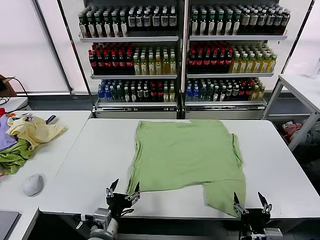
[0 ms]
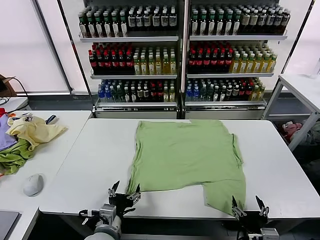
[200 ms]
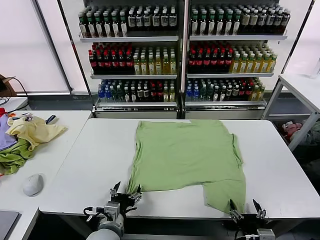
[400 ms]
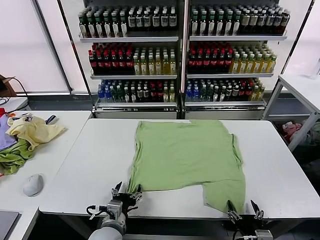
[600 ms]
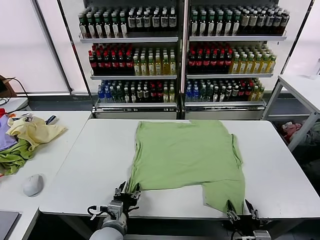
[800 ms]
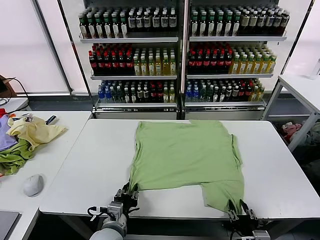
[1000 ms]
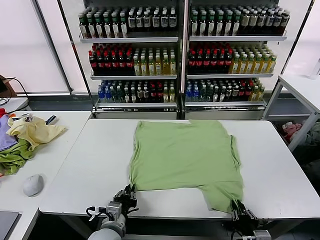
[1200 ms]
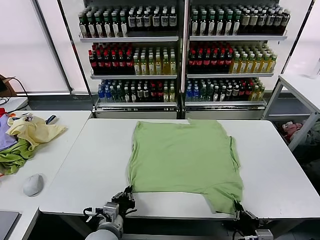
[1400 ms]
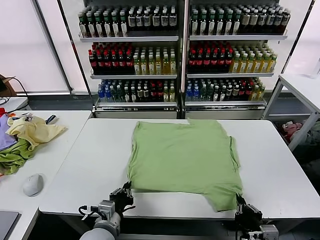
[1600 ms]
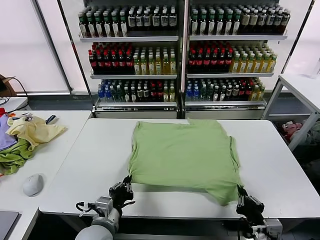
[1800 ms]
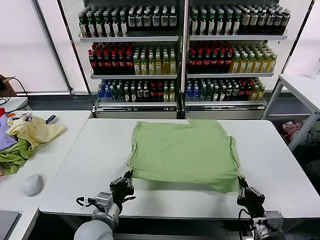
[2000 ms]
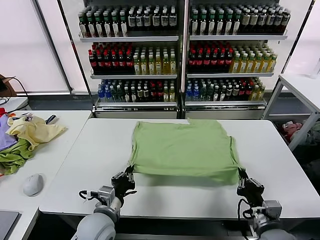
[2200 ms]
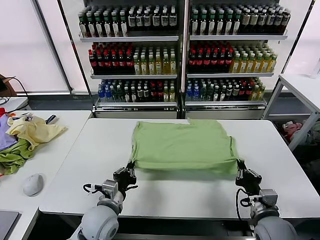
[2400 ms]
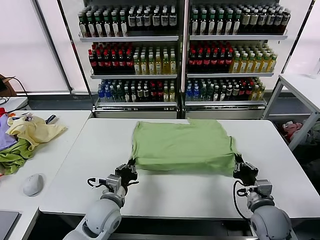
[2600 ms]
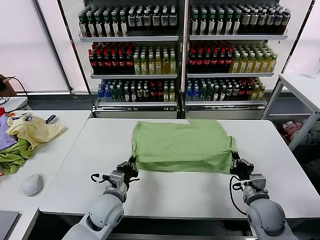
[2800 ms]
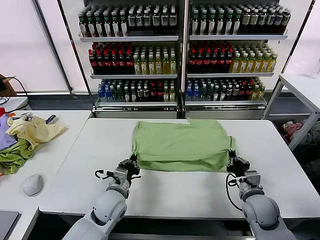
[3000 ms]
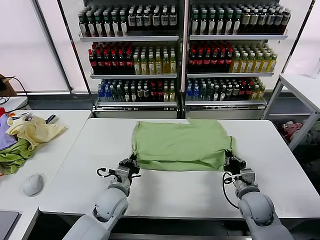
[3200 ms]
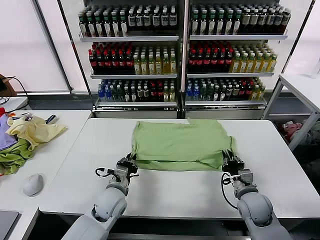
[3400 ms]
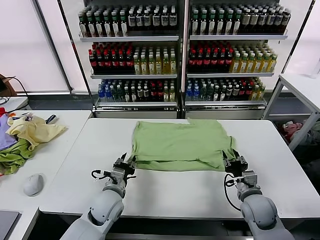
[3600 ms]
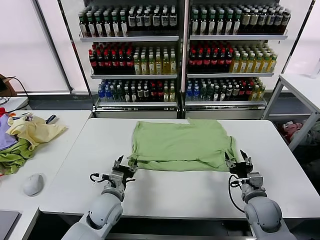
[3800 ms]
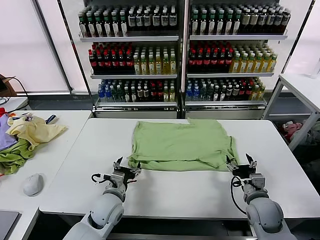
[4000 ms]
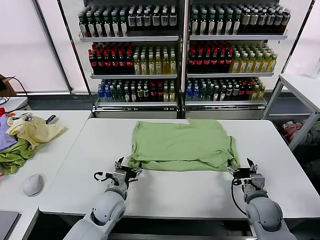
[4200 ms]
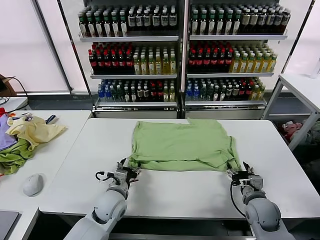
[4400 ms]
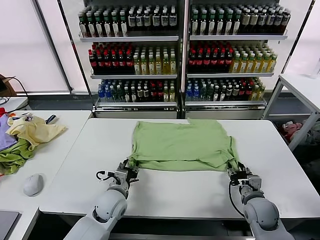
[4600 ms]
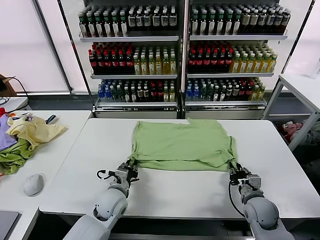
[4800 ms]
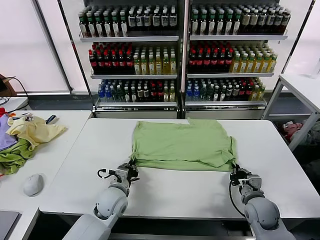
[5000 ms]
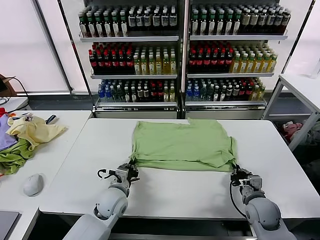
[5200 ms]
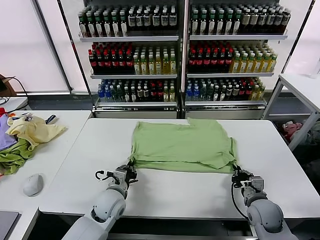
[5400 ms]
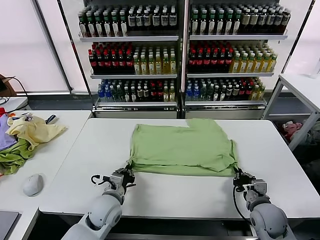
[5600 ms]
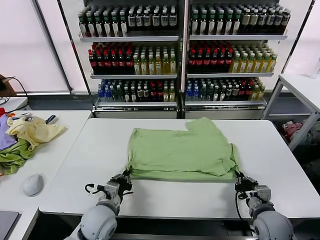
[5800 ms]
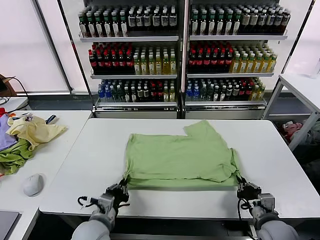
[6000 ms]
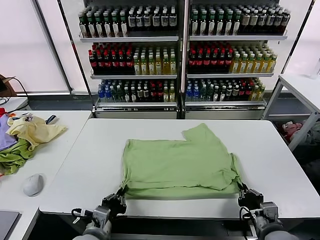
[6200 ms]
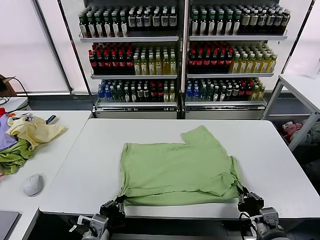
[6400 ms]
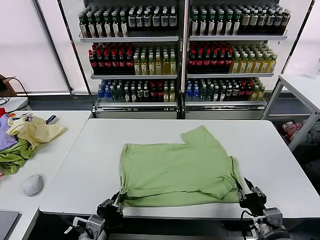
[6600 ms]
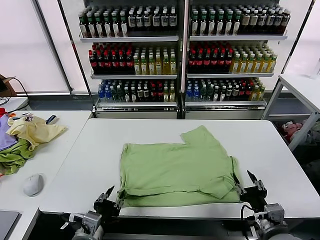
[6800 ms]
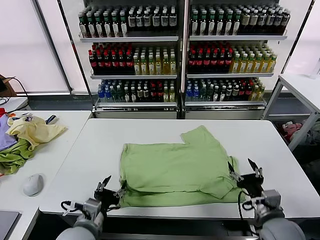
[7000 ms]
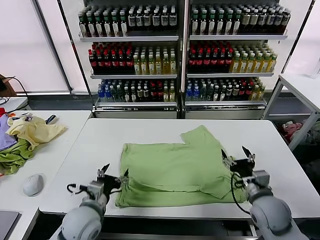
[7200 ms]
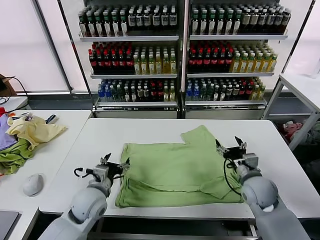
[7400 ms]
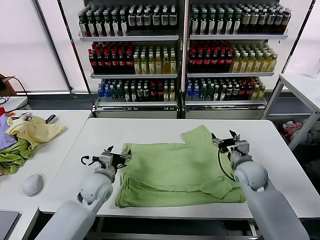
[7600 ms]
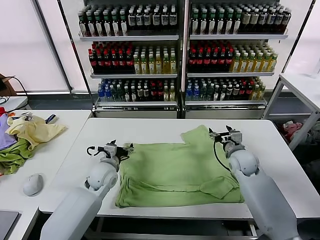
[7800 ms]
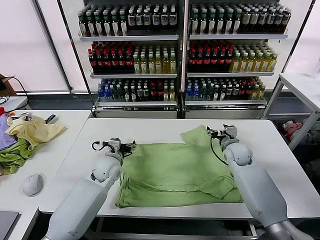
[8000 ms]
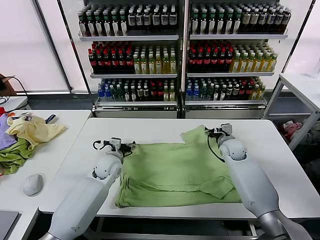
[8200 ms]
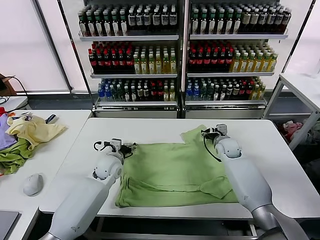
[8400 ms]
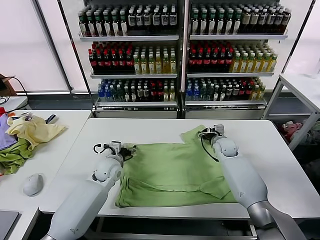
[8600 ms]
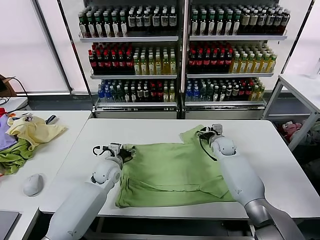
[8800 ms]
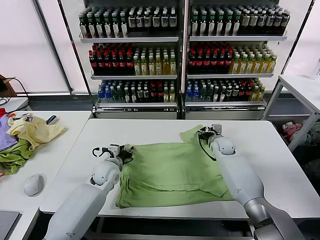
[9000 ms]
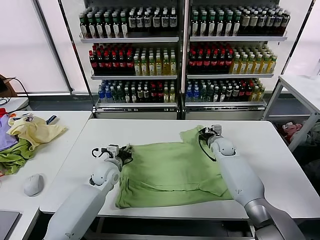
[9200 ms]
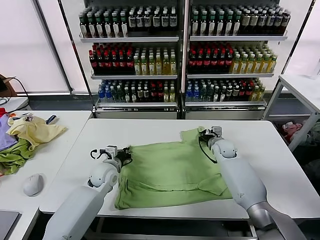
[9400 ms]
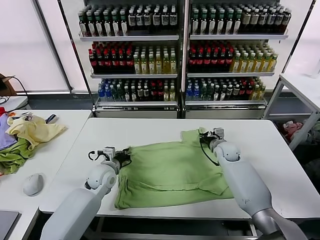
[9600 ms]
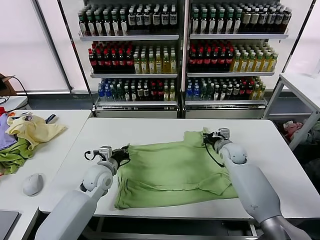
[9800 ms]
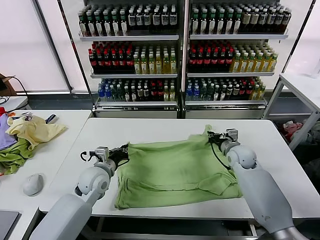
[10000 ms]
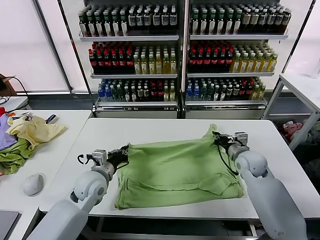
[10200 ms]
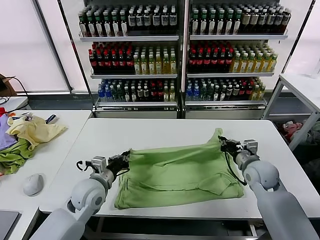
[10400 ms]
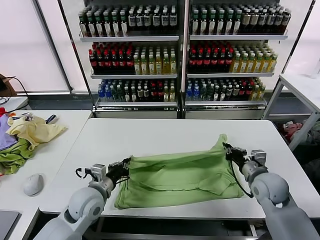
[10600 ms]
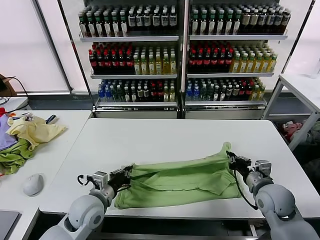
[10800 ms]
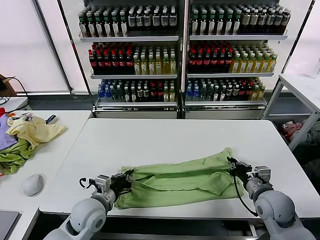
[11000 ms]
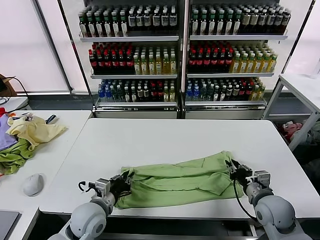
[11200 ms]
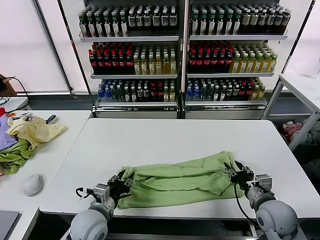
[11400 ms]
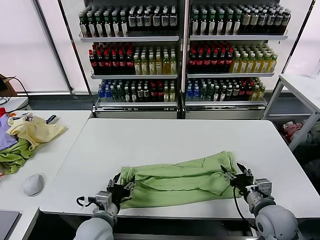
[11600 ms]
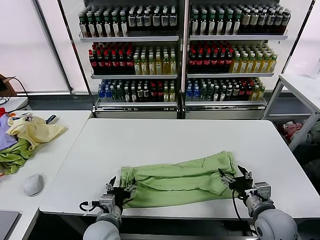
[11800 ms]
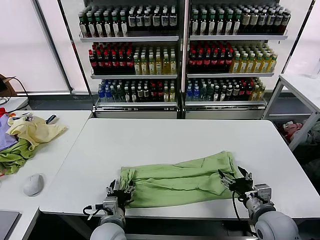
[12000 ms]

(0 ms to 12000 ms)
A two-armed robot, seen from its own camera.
Task of the whole recording: fold and organize the clothes.
Step, 0 ms - 1400 ms: use both grippers simultaneously to clamp the lower edge of the clothing fabric.
Step, 1600 ms - 3600 ms: use both grippers to drag the lower edge of the fabric forward and fold it over the upper edge.
Step, 3800 ms - 6600 ms: Drag the clothes downward with both gripper.
Step, 6800 ms - 9400 ms: use both grippers simultaneously to clamp the upper edge of the clothing fabric.
Step, 9600 ms - 11400 ms: use both grippers to drag the upper edge of the fabric backward and fold it over the lower edge.
1600 ms - 3000 ms: The two grippers go some 15 cm forward.
3000 ms - 4400 ms: The left gripper opens up. The right gripper opens its fingers.
4400 ms - 6000 ms: The two grippers go about 10 cm backward. The left gripper closes up. The right gripper closes its fingers.
6000 ms - 7600 ms: The left gripper is displaced forward by approximately 15 cm, and opens, while the right gripper shifts approximately 25 cm forward, and opens.
7600 ms - 9000 ms: The left gripper travels forward by about 5 cm, and closes up. Meanwhile the right gripper goes roughly 15 cm forward and downward, and closes up.
9000 ms - 10400 ms: The left gripper moves backward and upward, about 10 cm, and closes its fingers, while the right gripper is displaced backward by about 20 cm, and closes up.
10400 ms - 12000 ms: The left gripper is displaced backward, to the right and downward by approximately 15 cm, and opens up. The right gripper moves backward, about 15 cm, and opens its fingers.

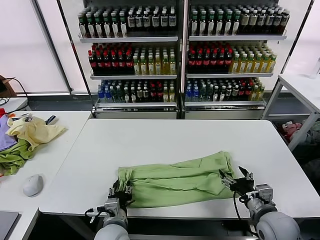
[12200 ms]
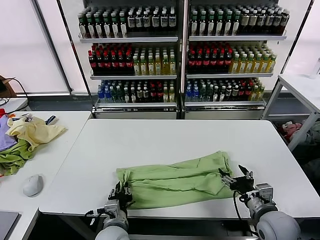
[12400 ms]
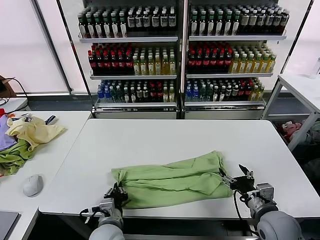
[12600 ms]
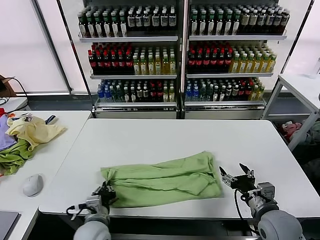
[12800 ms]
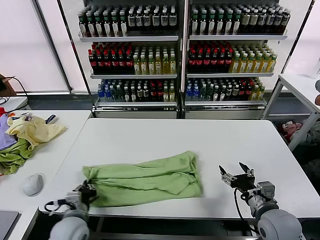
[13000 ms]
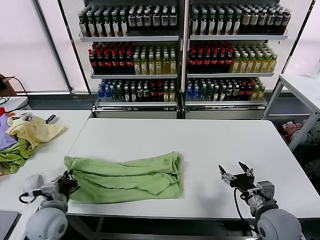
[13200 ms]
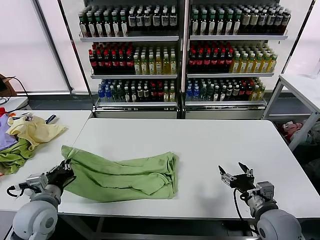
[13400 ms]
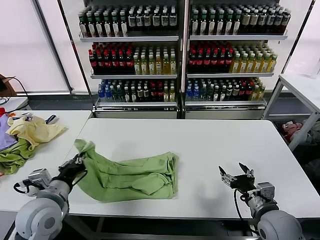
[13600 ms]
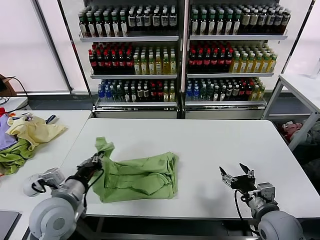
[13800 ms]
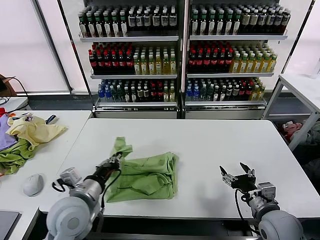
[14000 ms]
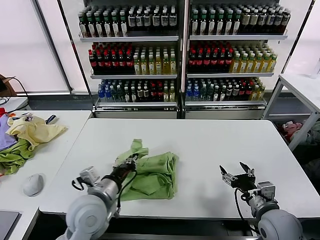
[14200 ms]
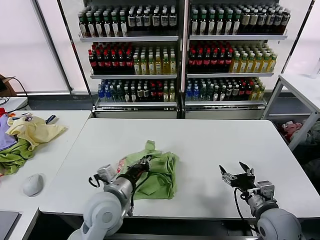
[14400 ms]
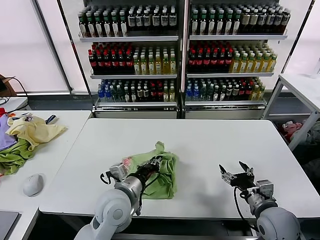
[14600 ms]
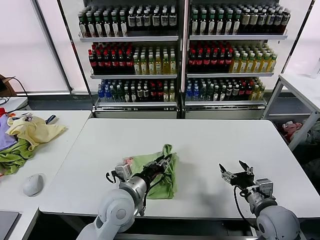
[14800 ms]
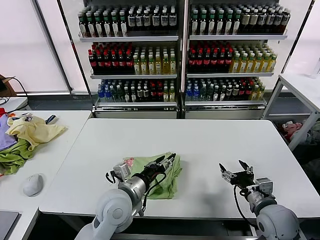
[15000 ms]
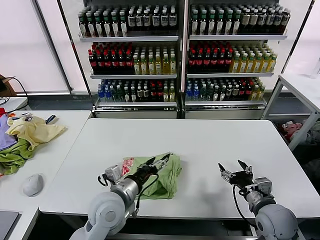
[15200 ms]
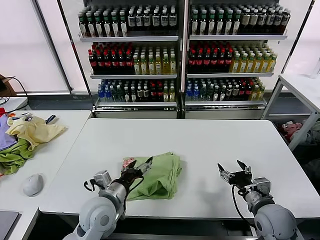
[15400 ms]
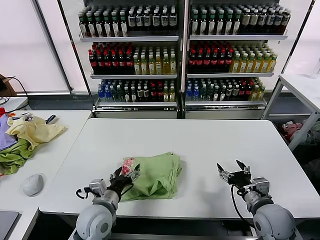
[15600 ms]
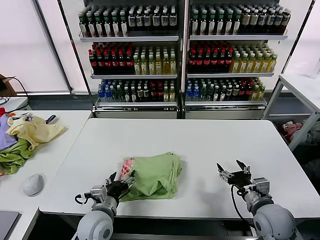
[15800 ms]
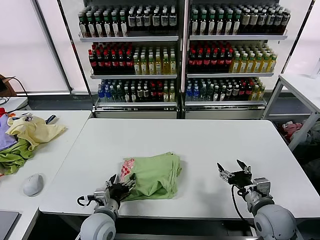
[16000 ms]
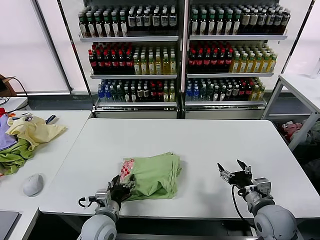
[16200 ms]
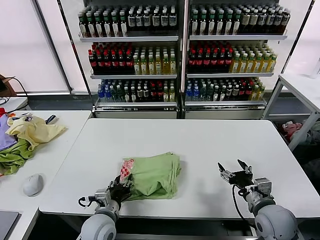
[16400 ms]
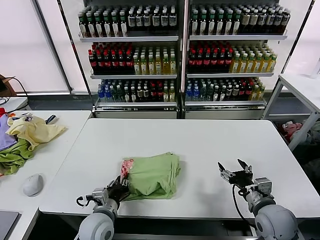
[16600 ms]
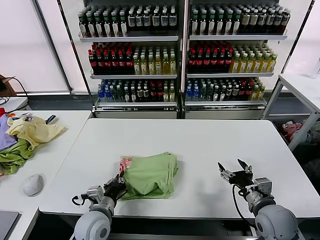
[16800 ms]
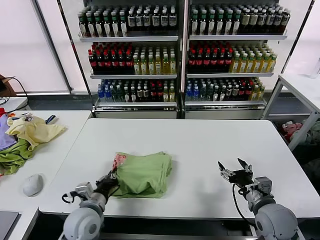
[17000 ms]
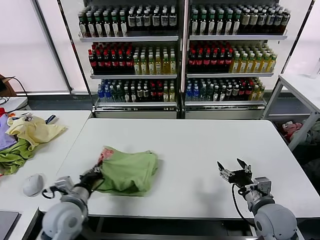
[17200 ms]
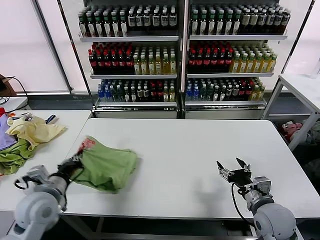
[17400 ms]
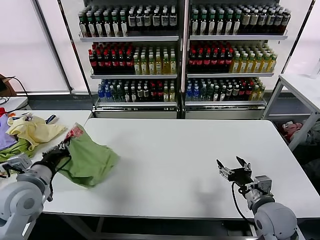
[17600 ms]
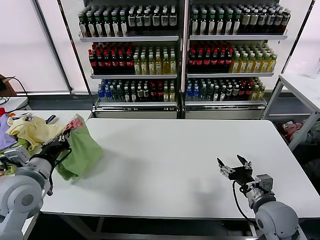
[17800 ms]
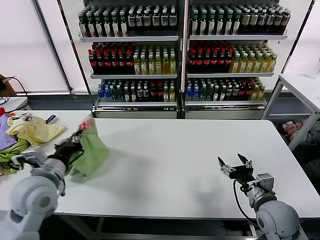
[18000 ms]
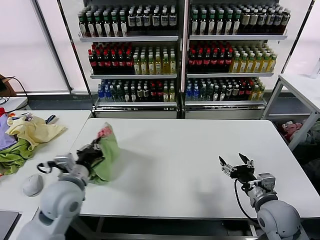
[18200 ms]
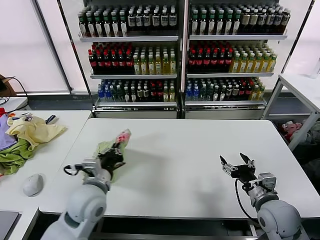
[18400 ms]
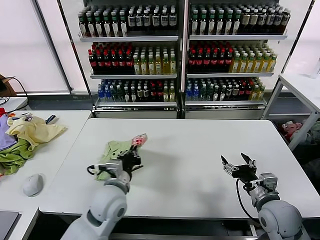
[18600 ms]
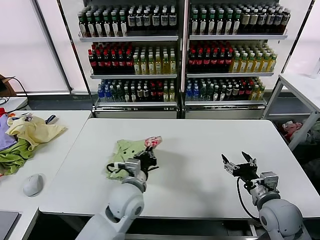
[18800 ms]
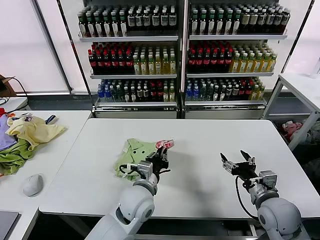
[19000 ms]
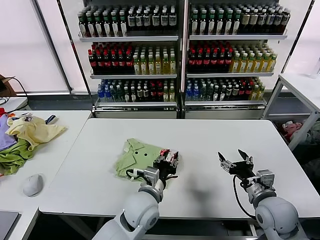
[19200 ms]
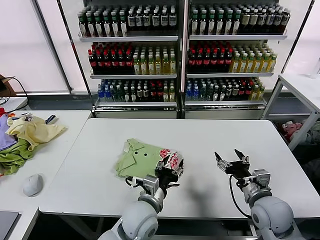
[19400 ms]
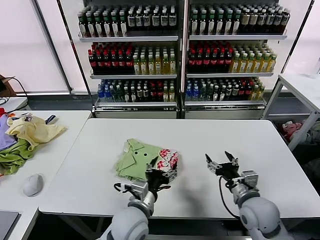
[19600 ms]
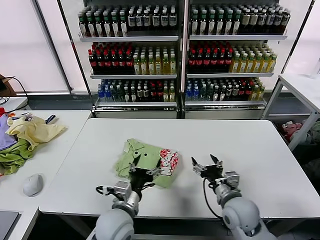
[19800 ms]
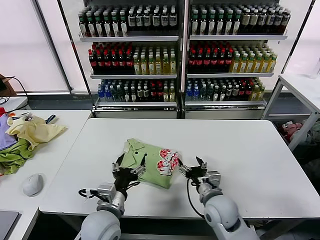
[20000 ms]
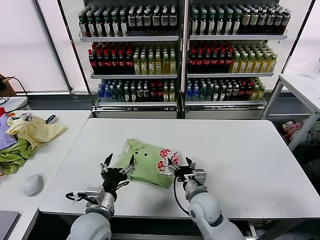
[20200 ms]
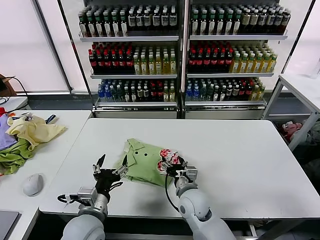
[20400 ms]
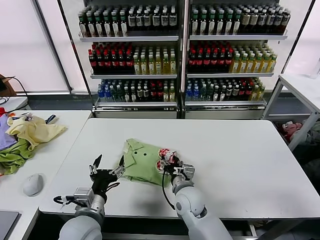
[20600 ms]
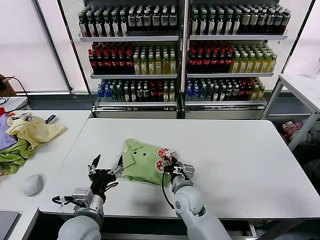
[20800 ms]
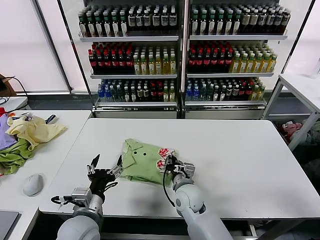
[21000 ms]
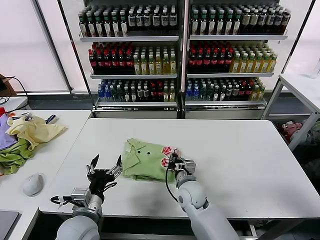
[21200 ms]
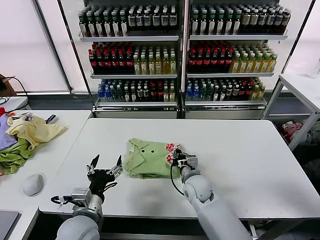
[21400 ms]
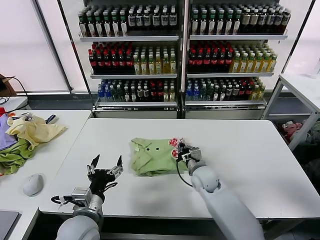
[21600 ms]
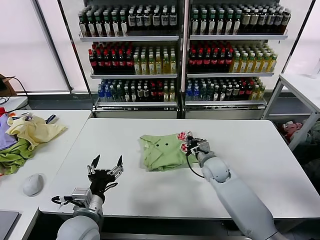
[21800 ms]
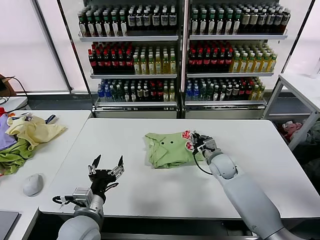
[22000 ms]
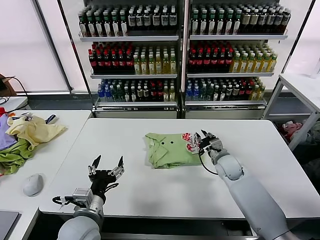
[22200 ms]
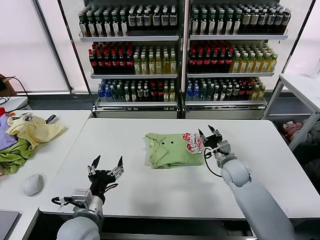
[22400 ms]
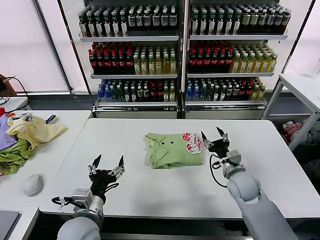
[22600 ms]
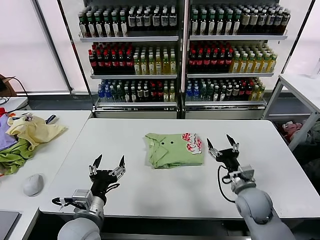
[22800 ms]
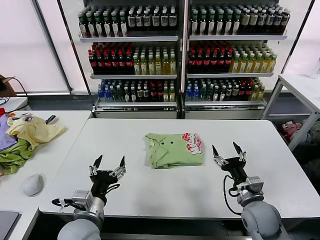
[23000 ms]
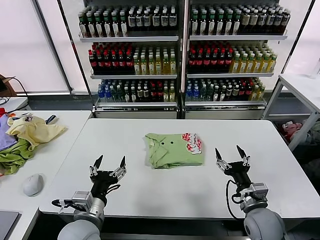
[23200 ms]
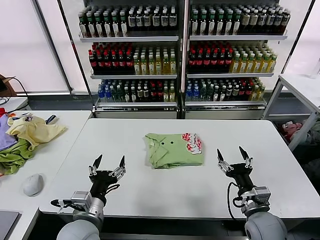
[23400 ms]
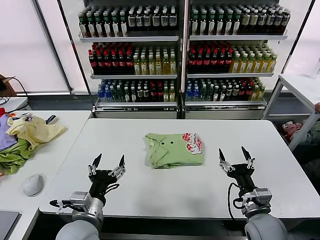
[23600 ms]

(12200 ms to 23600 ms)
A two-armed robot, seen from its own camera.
Task of the whole recording: fold and organize the clothes.
Step, 12800 ms - 15000 ms: use the left gripper to drag the left edge of the fabric to the left and folds it over the right edge.
Step, 15200 ms - 19200 ms: Flip the folded clothes over with left gripper.
Step, 19400 ms - 22200 ms: Drag the clothes to the center of the table.
12200 ms - 13600 ms: The left gripper moves to the left and upward, some 20 cm, and closes its fingers.
13600 ms - 15000 ms: The left gripper heads to the right, covering some 20 cm, and opens.
15000 ms - 16400 ms: The left gripper goes approximately 10 cm downward and to the left, and opens, then closes again.
16400 ms - 17800 ms: The left gripper is displaced upward and to the left by some 25 cm, and closes.
17800 ms - 19400 ms: The left gripper is displaced to the right by approximately 30 cm, and opens.
19400 ms - 20800 ms: The grippers both shift to the left by roughly 20 cm. The left gripper opens up; the right gripper closes its fingers.
20800 ms - 22200 ms: The right gripper travels to the right and forward by some 20 cm.
22200 ms - 23600 ms: The right gripper moves backward, some 25 cm, and opens its fingers.
